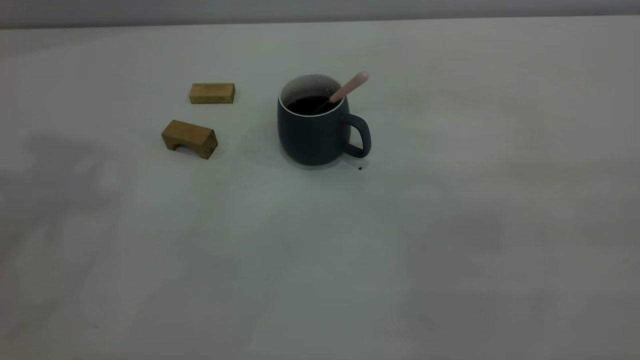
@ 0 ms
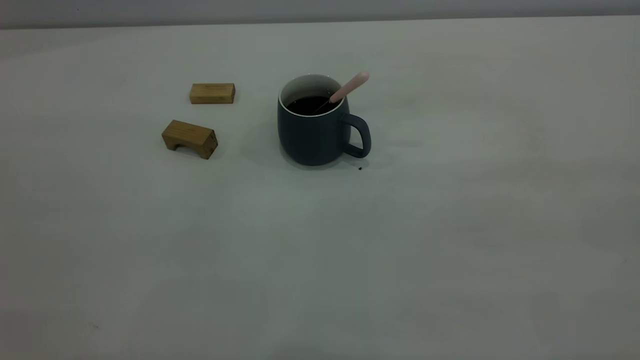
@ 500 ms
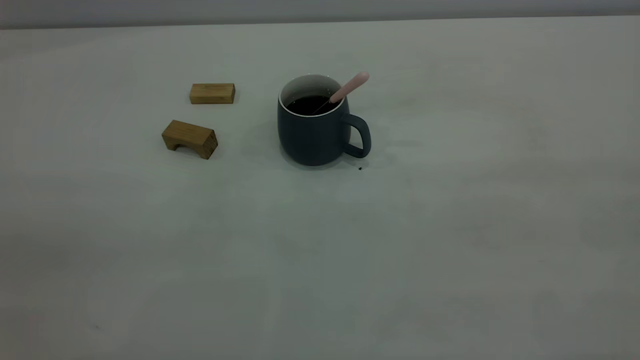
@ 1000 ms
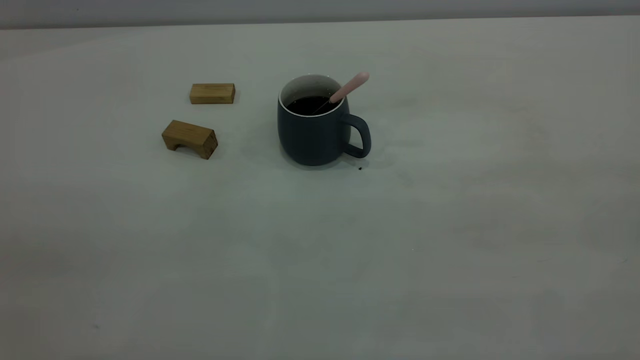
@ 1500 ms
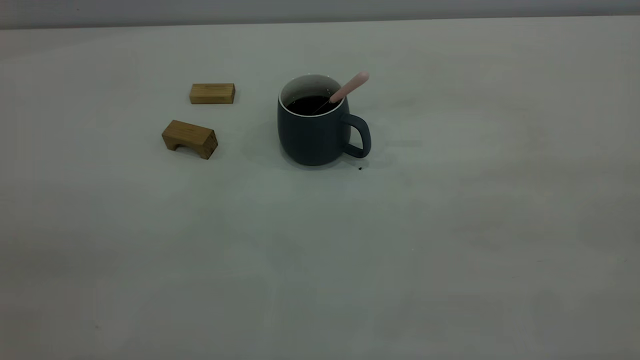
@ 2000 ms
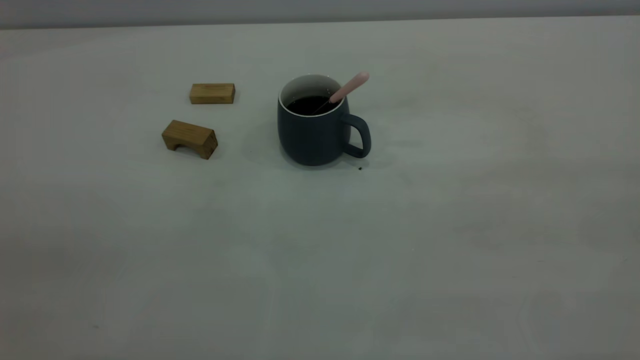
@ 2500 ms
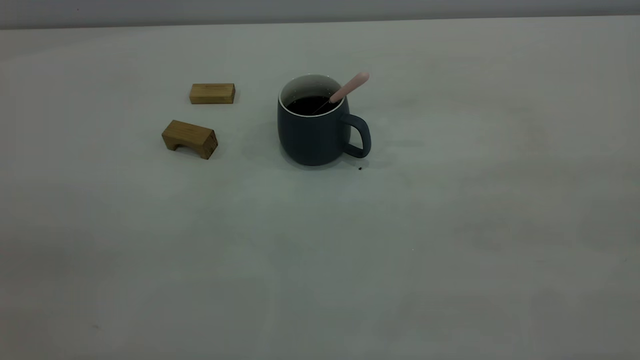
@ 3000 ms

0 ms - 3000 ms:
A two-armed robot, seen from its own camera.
1500 ms - 3000 ms: The two grippers keep their place.
